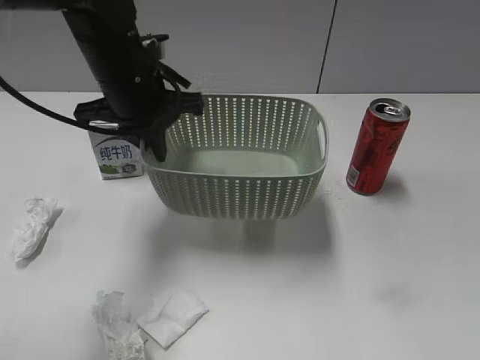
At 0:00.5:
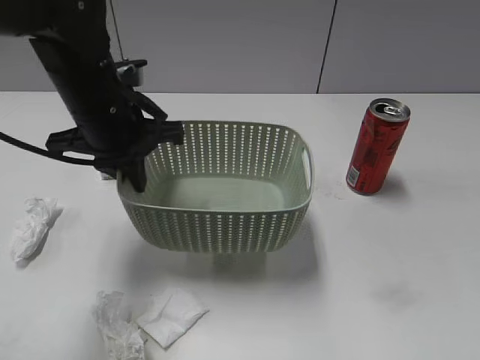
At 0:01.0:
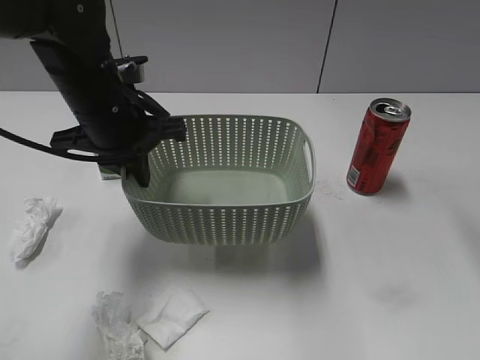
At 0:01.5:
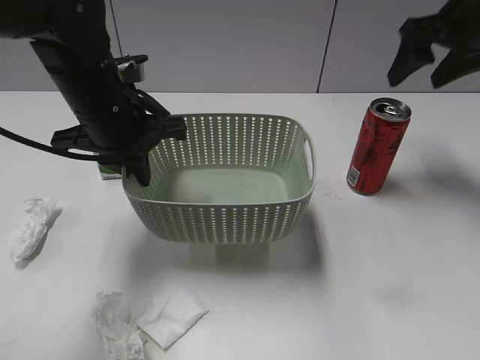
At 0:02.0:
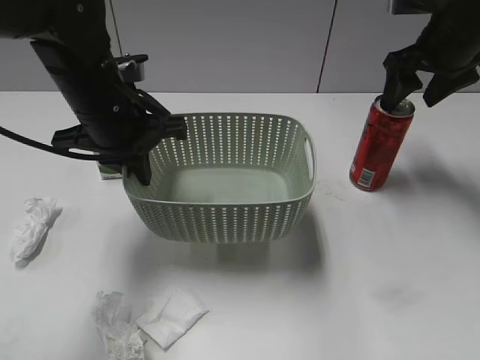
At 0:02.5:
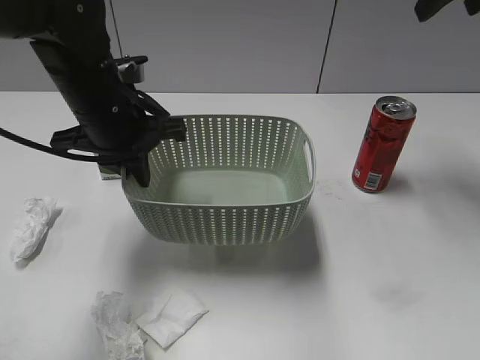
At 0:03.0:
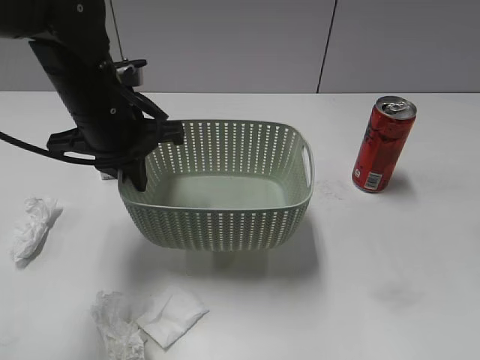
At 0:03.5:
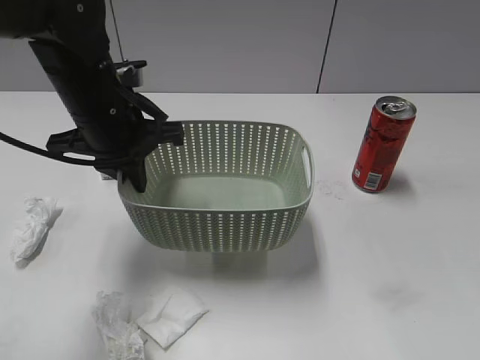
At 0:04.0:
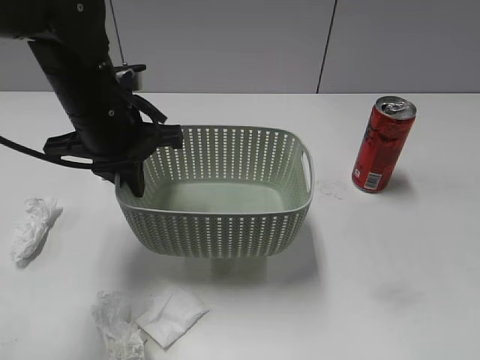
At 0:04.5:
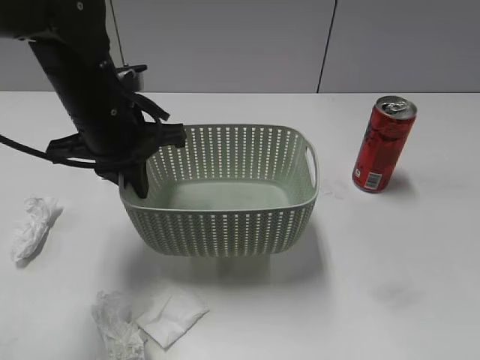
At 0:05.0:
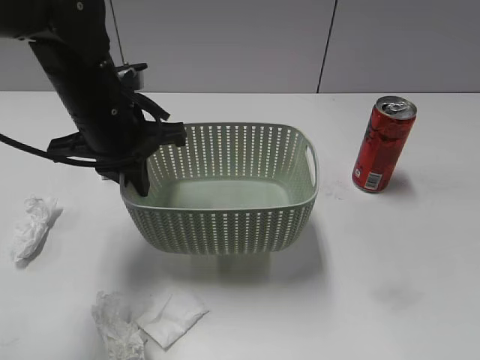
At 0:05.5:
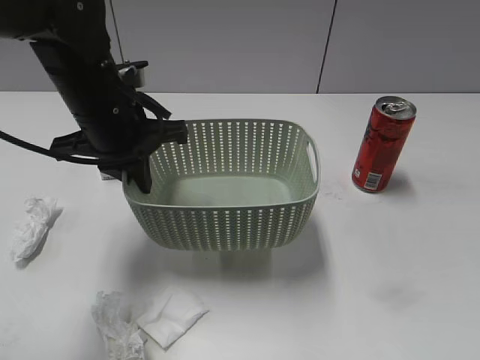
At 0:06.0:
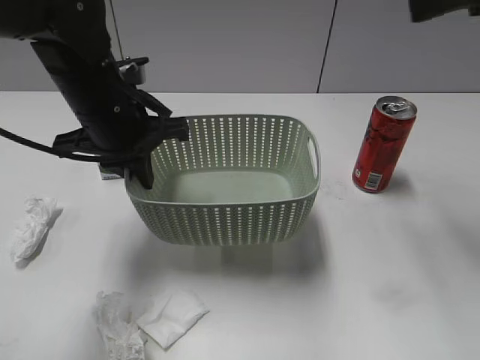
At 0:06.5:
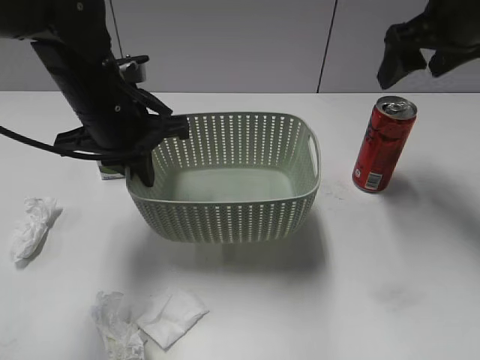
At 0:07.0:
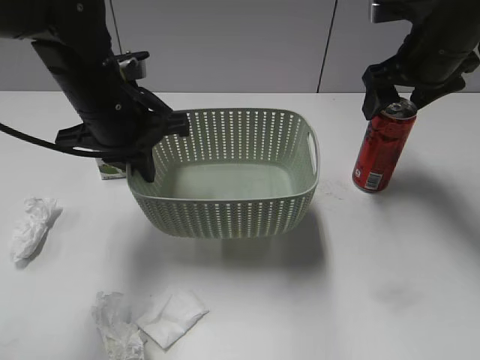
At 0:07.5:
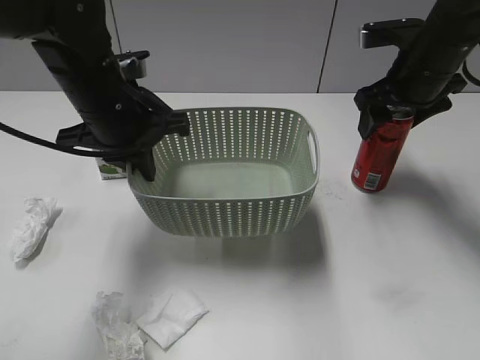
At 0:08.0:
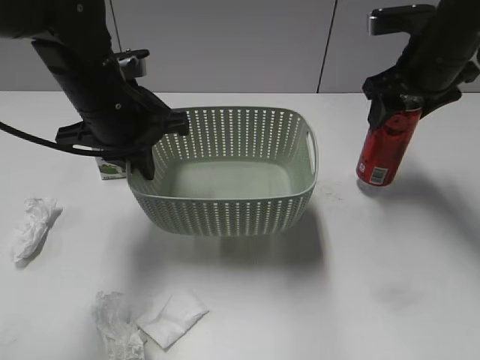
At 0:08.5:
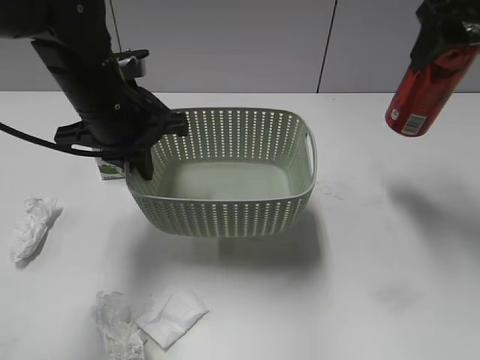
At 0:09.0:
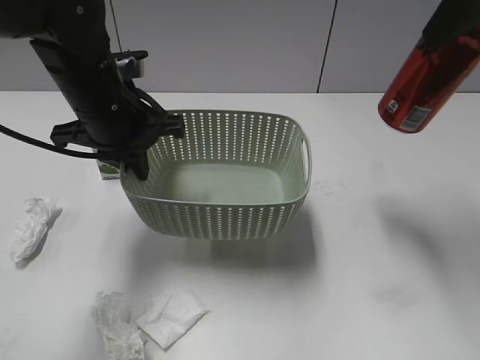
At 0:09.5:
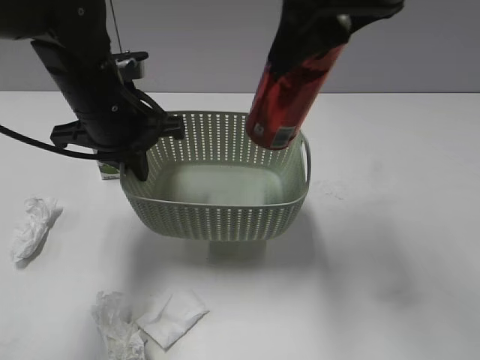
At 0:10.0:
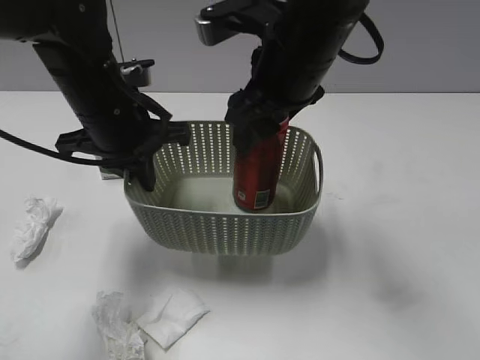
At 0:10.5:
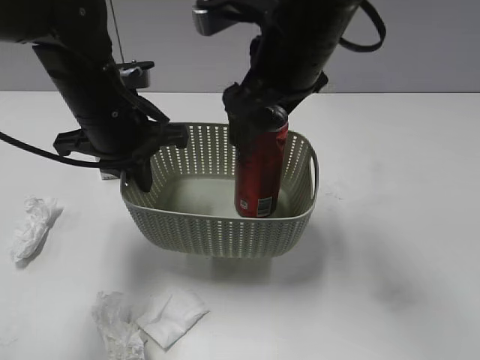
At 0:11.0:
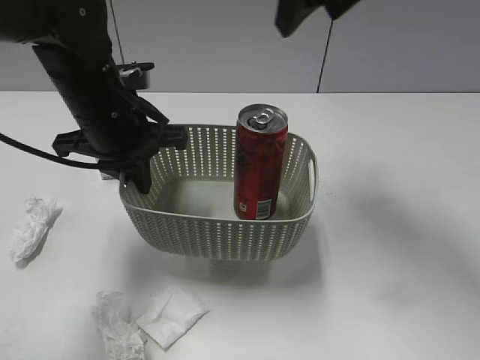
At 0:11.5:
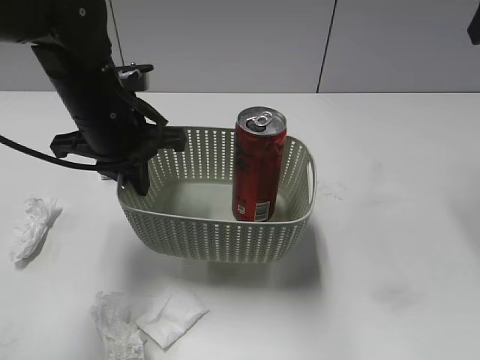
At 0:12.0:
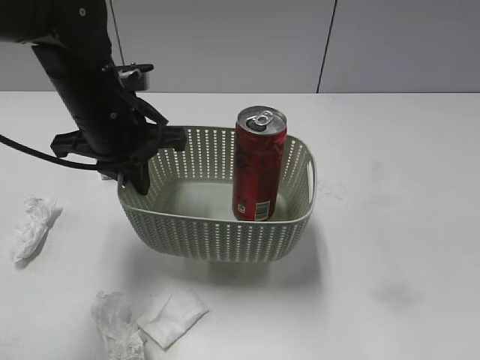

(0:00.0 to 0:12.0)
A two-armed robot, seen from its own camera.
Step, 0:01.5 - 0:07.5: Grasp the cola can with right gripper.
Step, 0:08.0 - 0:10.5: Place the cola can in the basket with right gripper.
0:00.0 - 0:02.0: The right gripper travels forward by approximately 40 cm, and closes and opens again.
0:02.0 - 0:04.0: The right gripper goes roughly 40 cm backward.
0:04.0 - 0:06.0: The right gripper travels forward by some 30 cm, and opens.
0:06.0 - 0:08.0: The right gripper shifts approximately 20 cm downward and forward, and closes up.
0:08.0 - 0:10.0: The right gripper moves to the left and backward, about 20 cm.
0:10.0 - 0:12.0: The right gripper goes some 30 cm to the right and backward, and opens.

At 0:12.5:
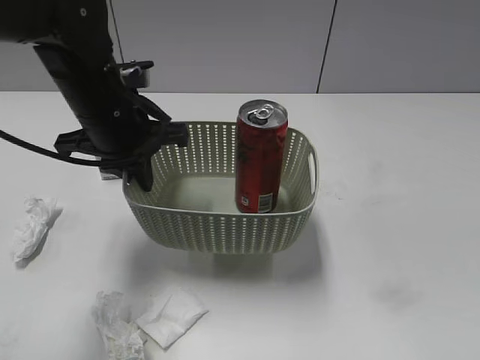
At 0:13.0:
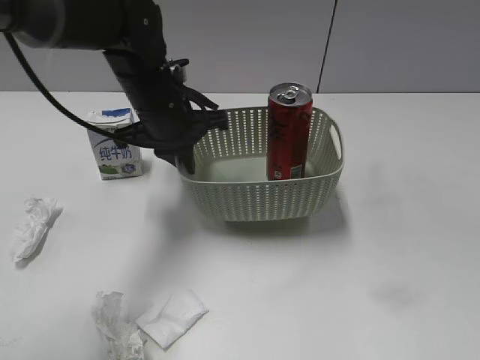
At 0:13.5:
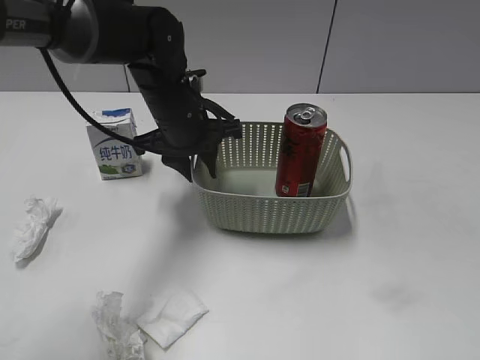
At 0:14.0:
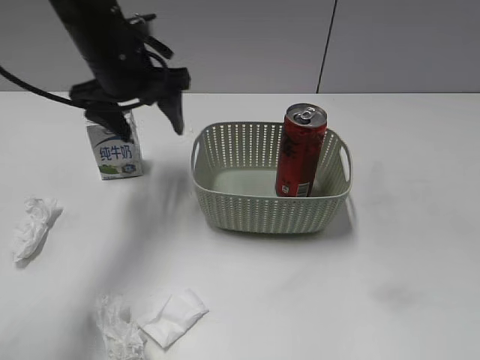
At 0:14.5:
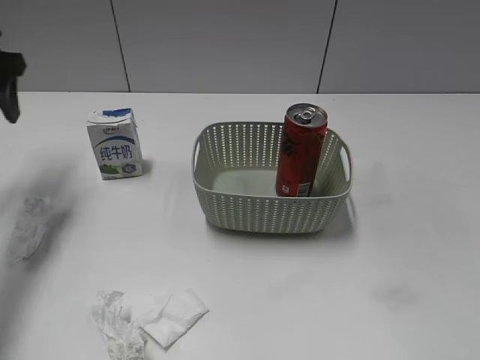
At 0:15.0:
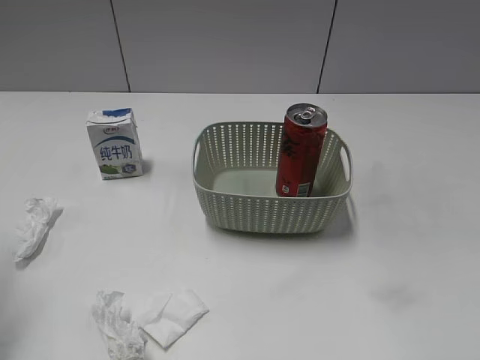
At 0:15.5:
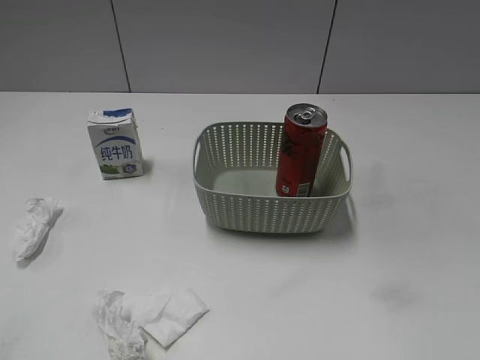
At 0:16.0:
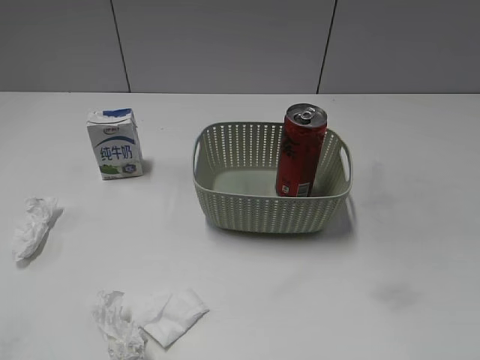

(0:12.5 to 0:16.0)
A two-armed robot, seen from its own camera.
0:12.5 - 0:14.5: The left gripper moves to the left, approximately 20 cm, and opens its fingers.
0:14.5 - 0:16.0: The left gripper is displaced backward by some 35 cm.

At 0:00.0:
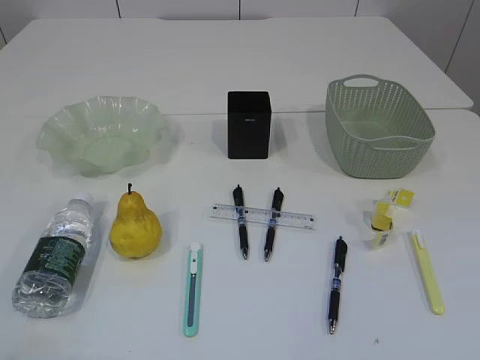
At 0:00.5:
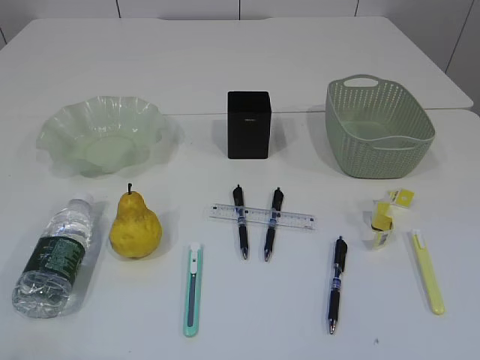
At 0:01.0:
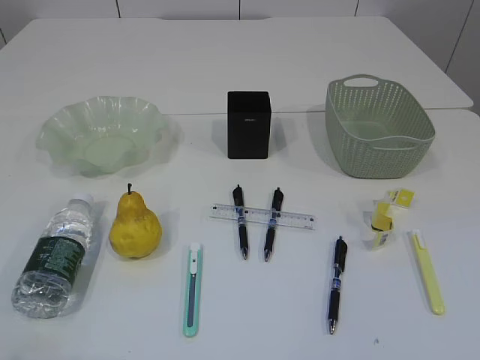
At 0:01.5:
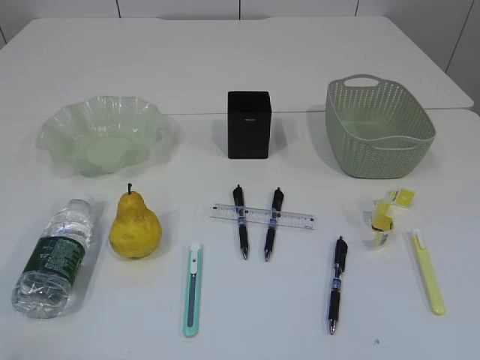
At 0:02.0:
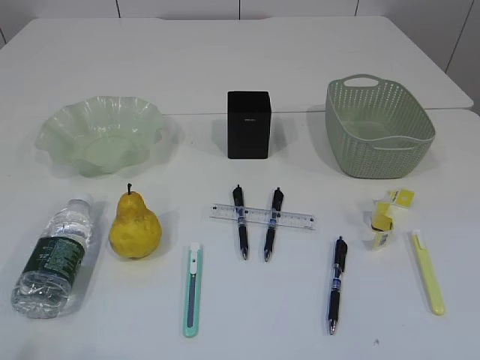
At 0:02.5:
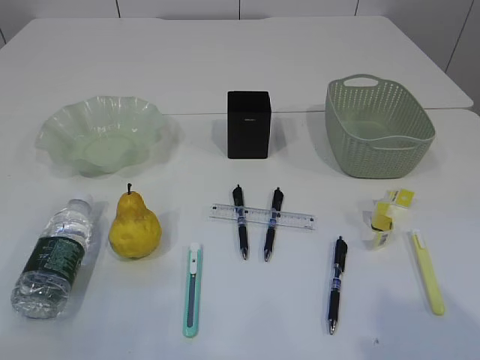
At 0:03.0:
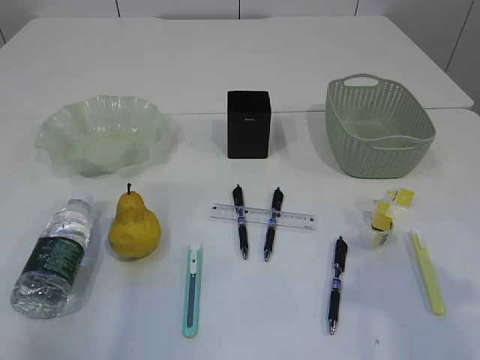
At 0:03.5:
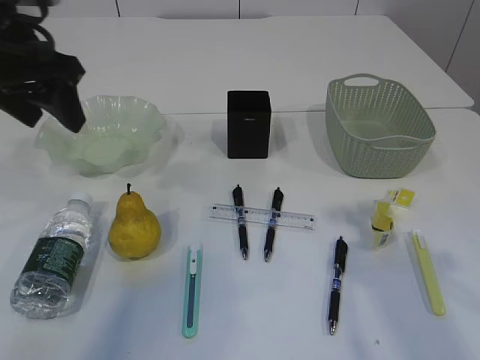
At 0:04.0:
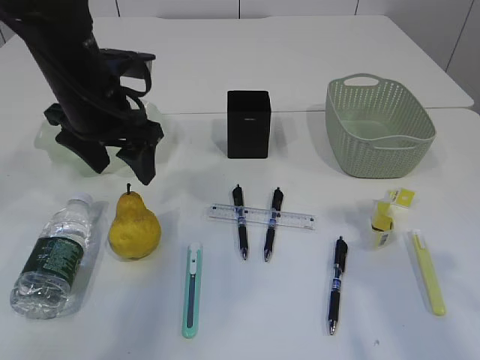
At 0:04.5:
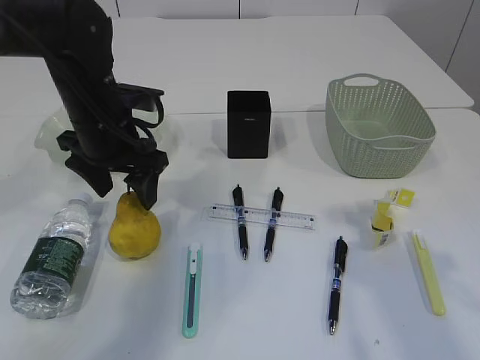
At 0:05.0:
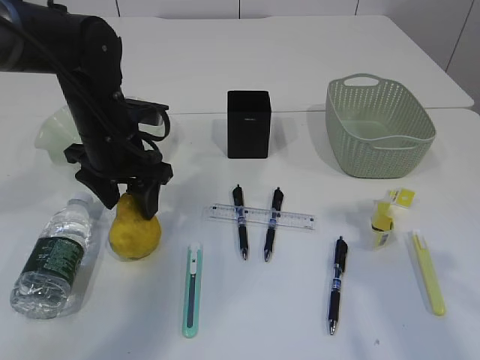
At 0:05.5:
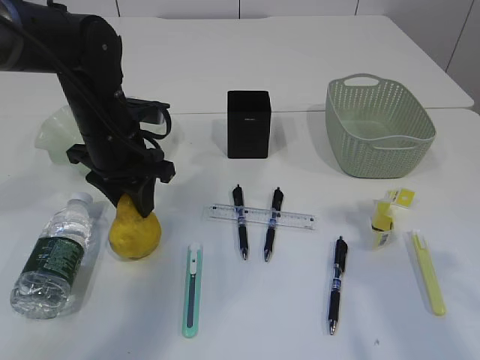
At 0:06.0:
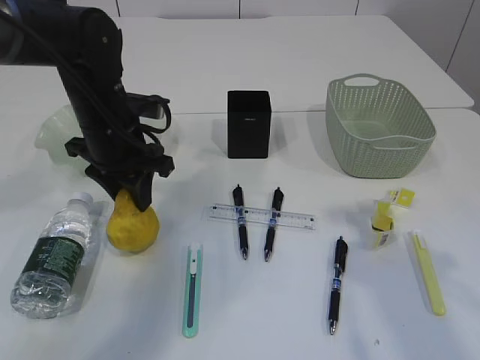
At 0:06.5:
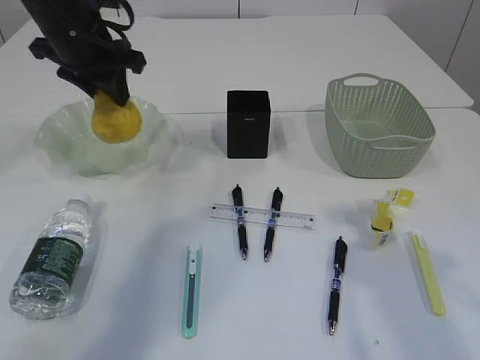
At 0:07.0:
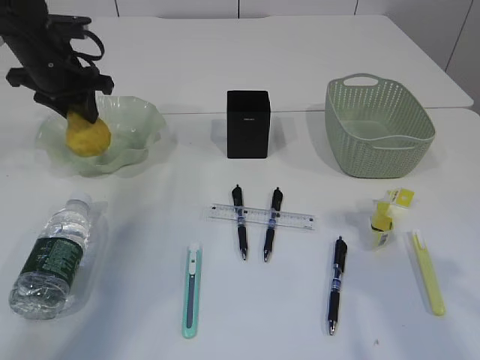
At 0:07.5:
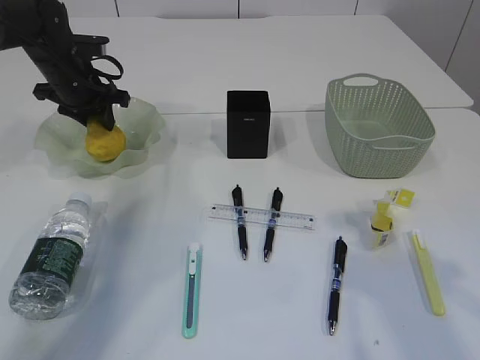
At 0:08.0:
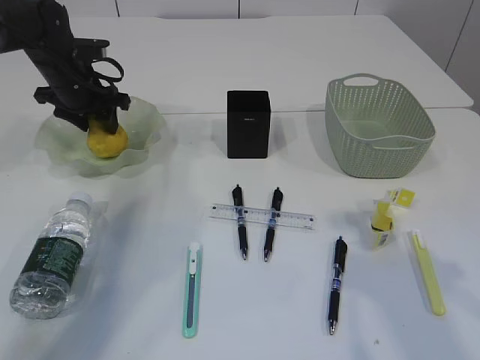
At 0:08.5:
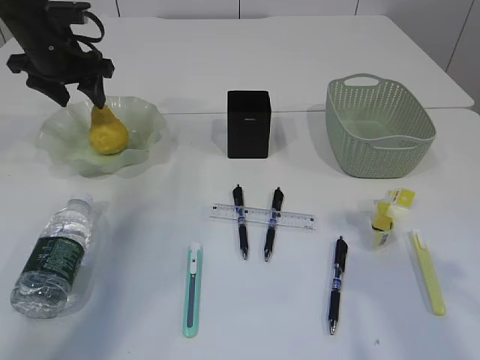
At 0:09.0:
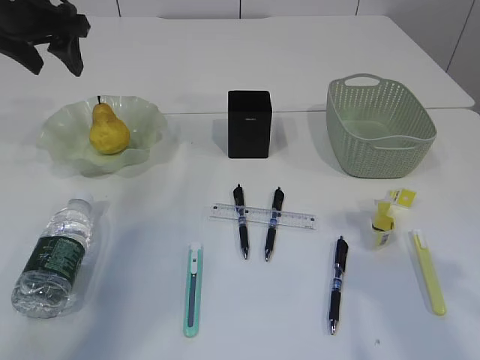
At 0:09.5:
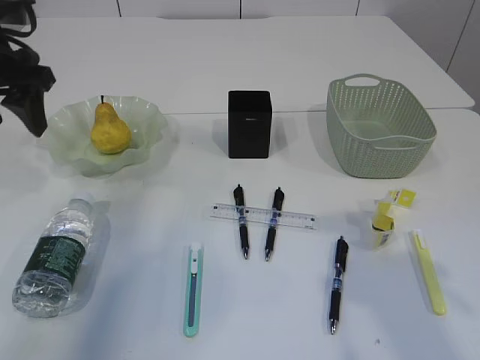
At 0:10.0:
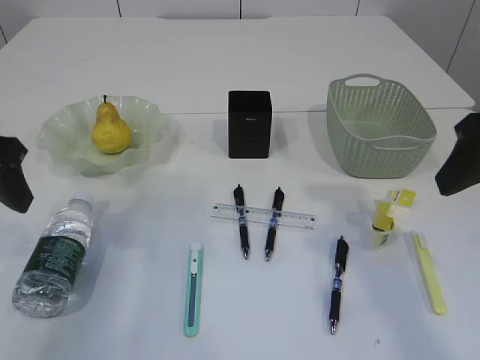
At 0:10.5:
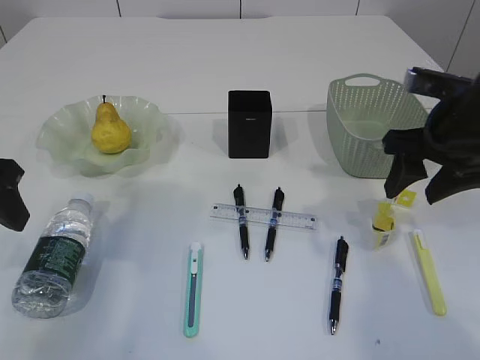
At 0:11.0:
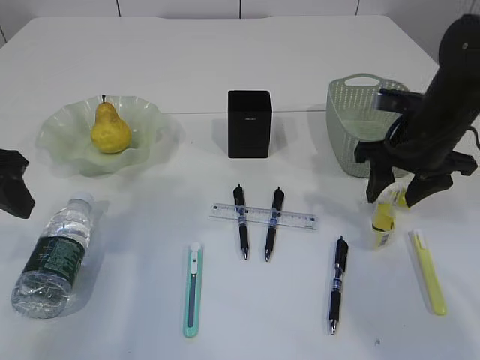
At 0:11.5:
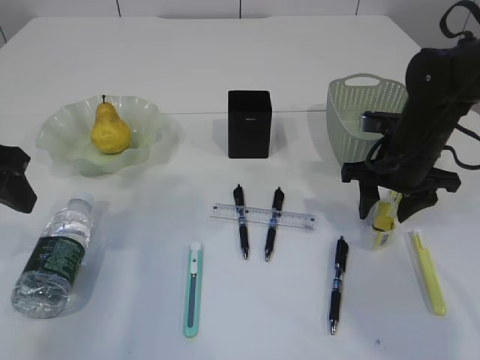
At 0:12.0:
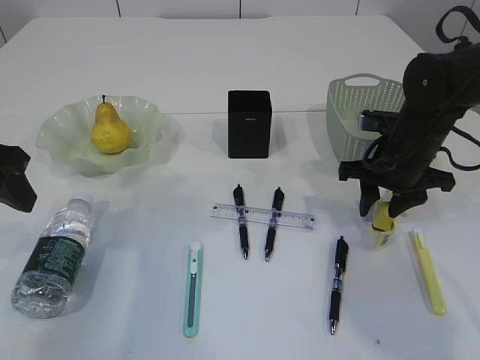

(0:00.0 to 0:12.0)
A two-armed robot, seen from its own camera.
Step, 0:06.5 - 0:09.0: Place the pear in the plate.
0:02.0 - 0:04.0: The right gripper is displaced forward by roughly 20 cm; the left gripper is displaced forward and to the right by roughly 40 cm.
0:04.0 - 0:06.0: The left gripper moves downward, approximately 5 cm, and closes up.
0:06.0 - 0:08.0: The left gripper heads forward and to the left, covering roughly 15 cm.
0:08.0 - 0:10.0: The right gripper goes approximately 5 cm forward. The left gripper heads backward, covering about 25 cm.
0:10.0 - 0:12.0: The right gripper is displaced downward and forward by about 20 cm.
